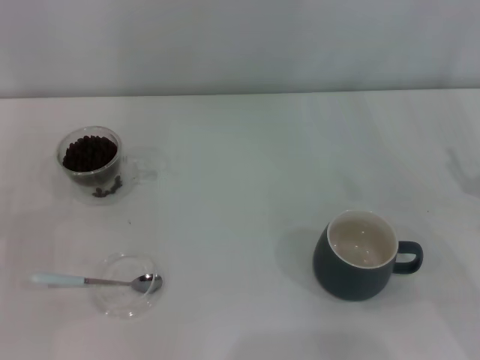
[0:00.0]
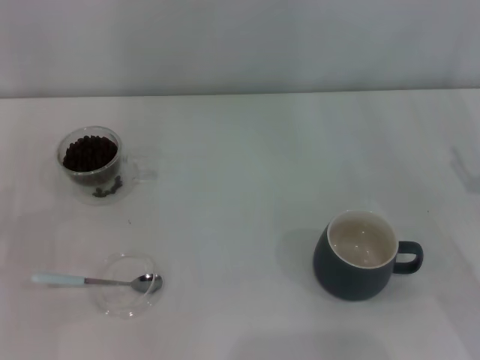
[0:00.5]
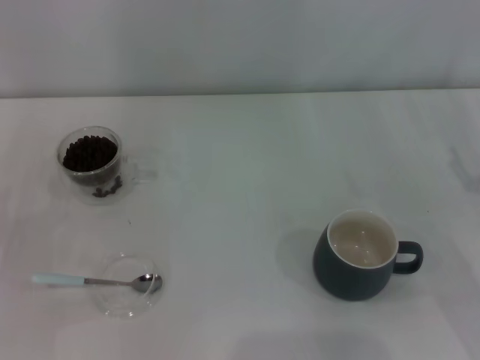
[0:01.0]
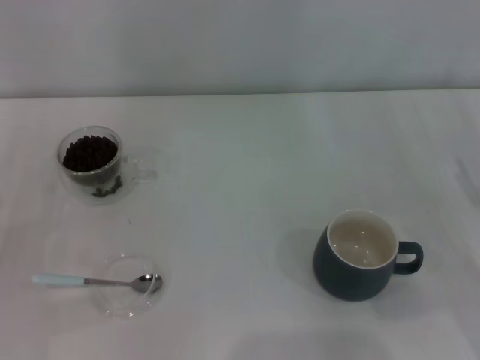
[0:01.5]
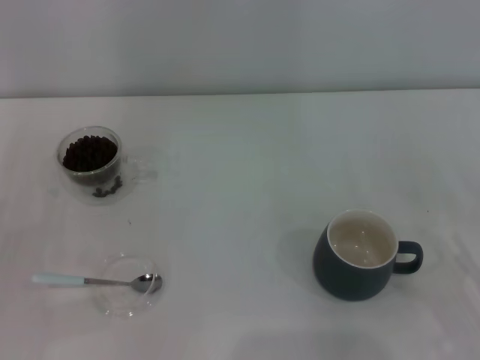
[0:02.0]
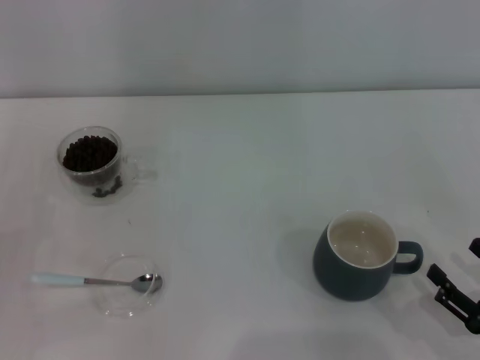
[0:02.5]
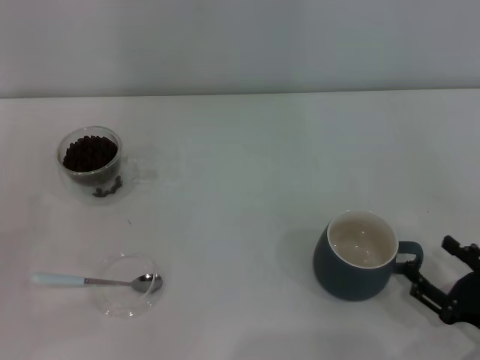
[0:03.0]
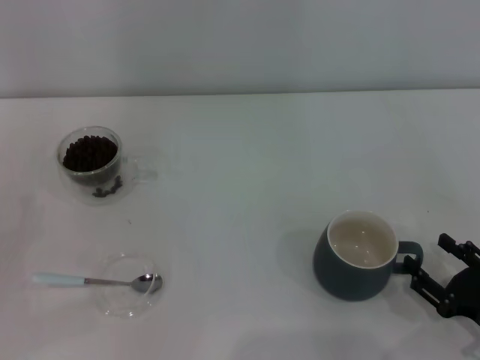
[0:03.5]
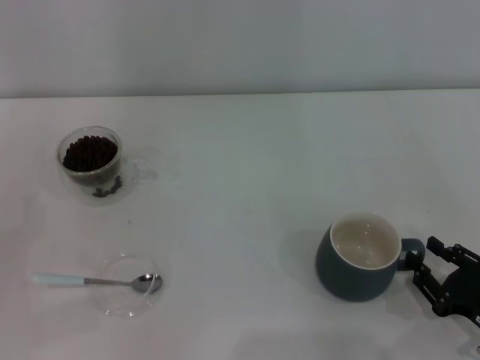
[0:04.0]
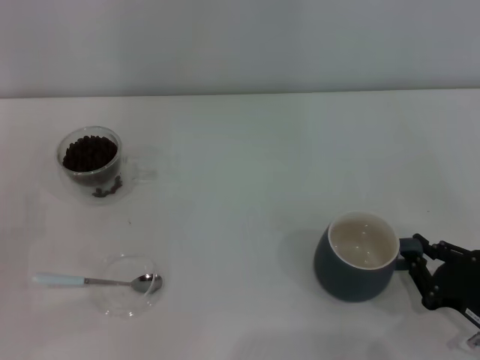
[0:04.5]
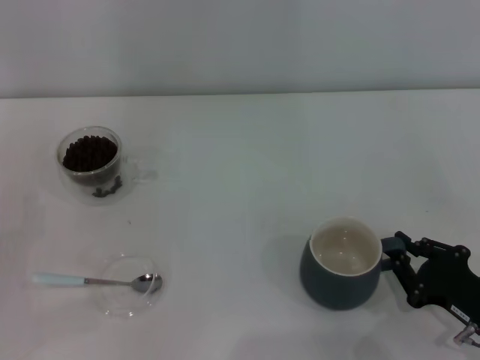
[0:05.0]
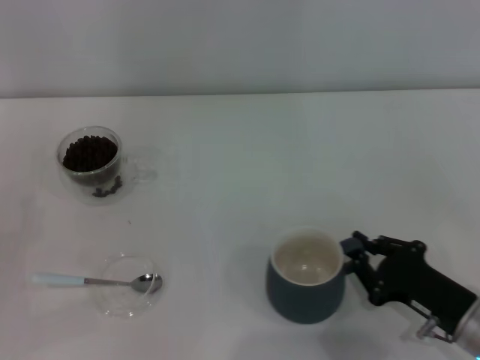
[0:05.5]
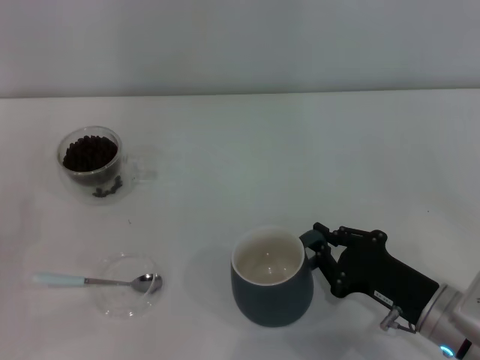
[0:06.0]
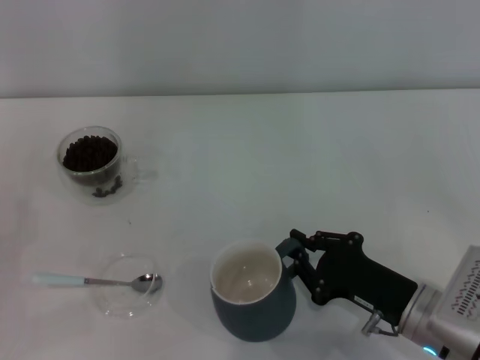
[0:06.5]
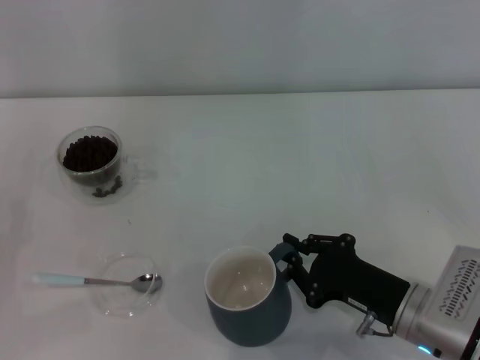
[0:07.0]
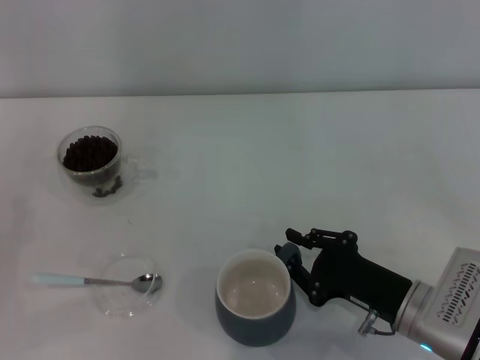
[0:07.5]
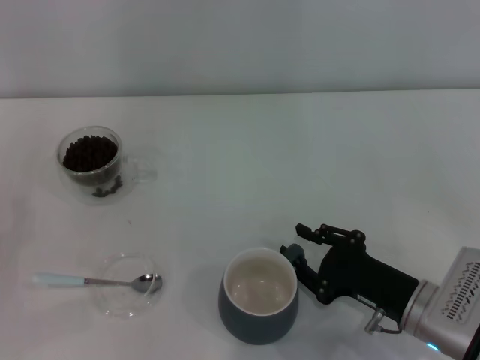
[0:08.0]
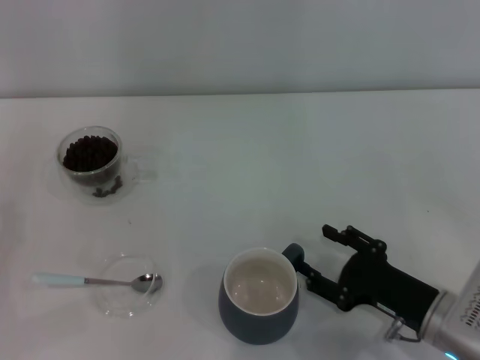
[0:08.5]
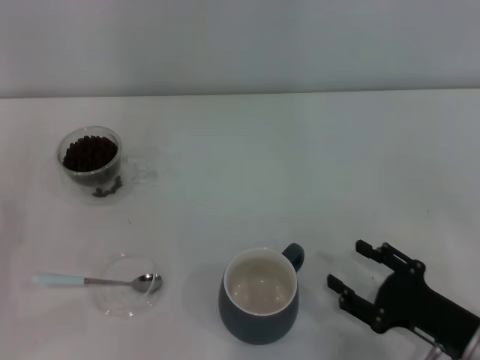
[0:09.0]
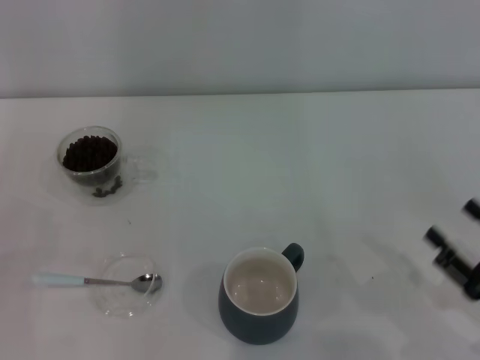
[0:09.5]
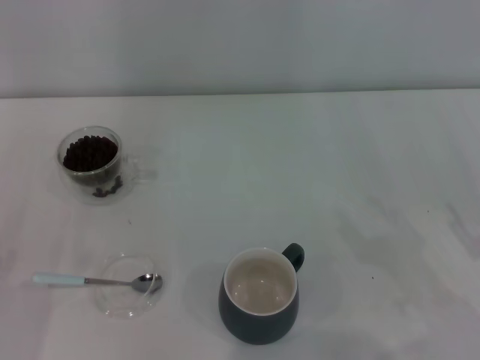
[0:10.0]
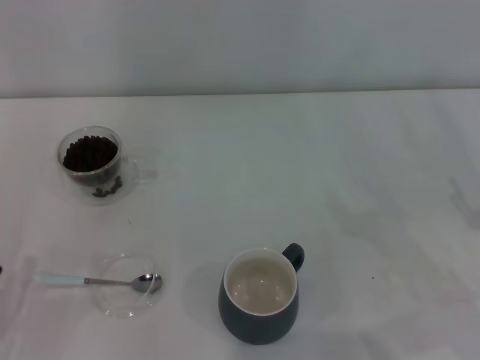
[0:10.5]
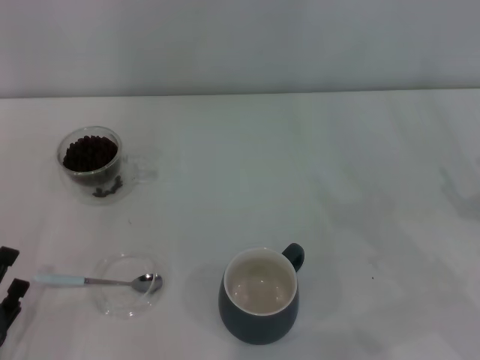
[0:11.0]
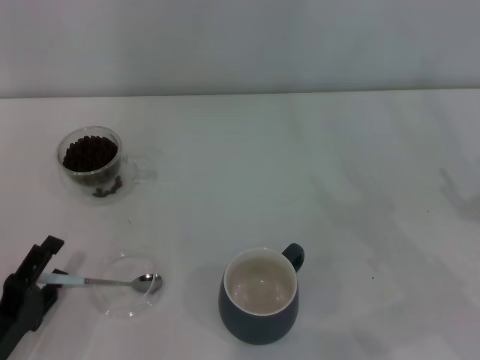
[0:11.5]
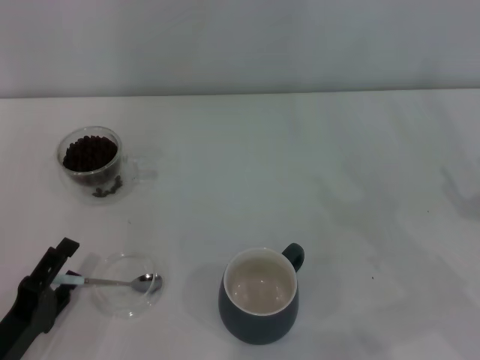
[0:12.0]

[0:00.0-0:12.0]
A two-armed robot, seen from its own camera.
Task of the whole recording: Use a blue spoon to take out the coffee beans from the glass and pour them into the gray cup.
Step, 0:00.0 to 0:08.5: Move the cup to the center of view with the left gripper.
0:02.0 to 0:04.0: The right gripper changes place by about 5 cm, and closes its fingers.
0:04.0 to 0:06.0: The right gripper heads to the left, covering some 10 cm, and closes.
0:06.0 to 0:08.0: There are only small adjustments of the grippers.
0:08.0 to 0:10.0: The right gripper is displaced to the right by about 15 cm, and opens. Meanwhile the left gripper shifts about 5 cm backward.
0:10.0 to 0:12.0: The left gripper heads to the right, covering about 5 cm.

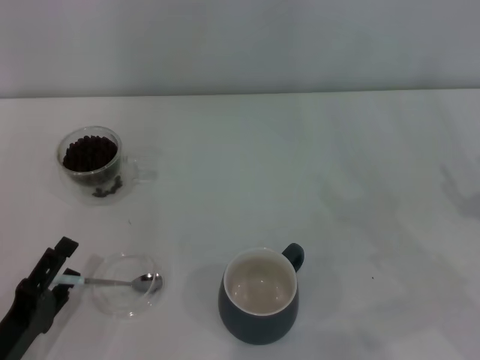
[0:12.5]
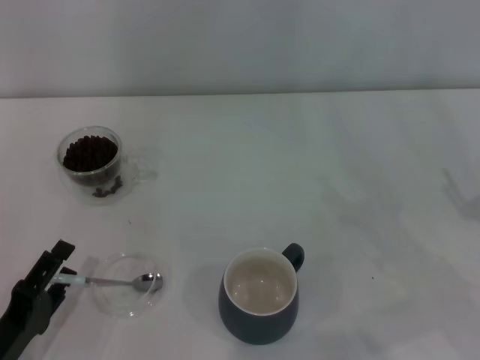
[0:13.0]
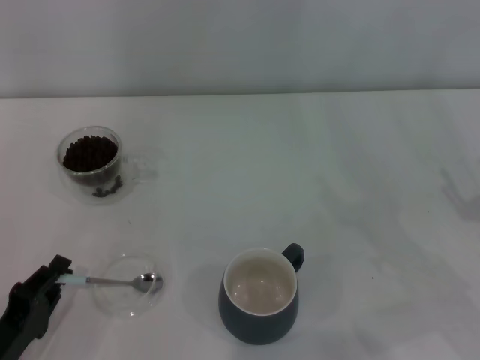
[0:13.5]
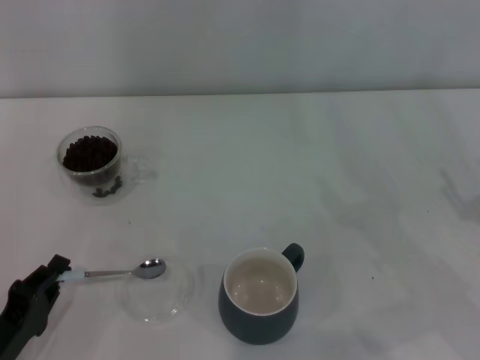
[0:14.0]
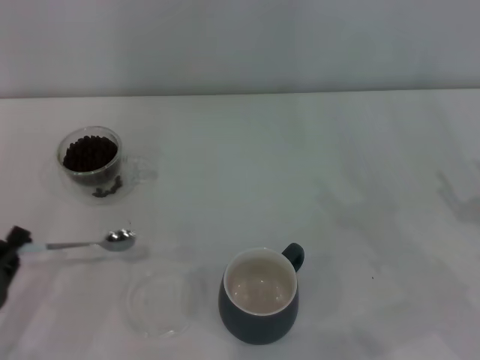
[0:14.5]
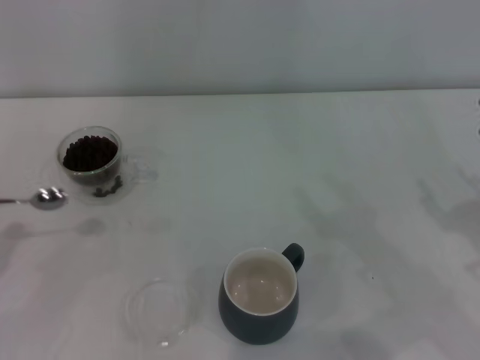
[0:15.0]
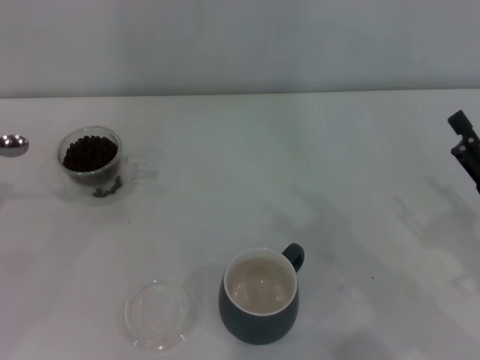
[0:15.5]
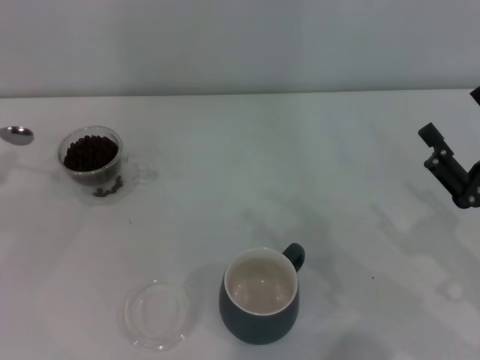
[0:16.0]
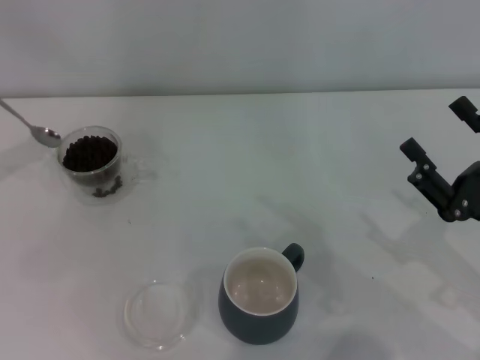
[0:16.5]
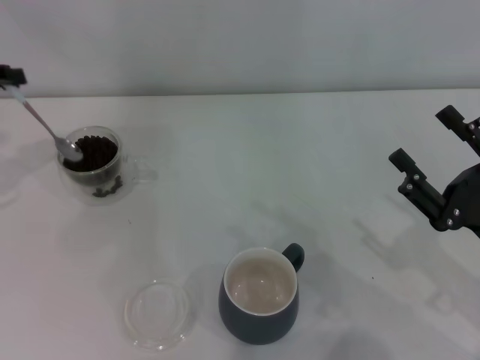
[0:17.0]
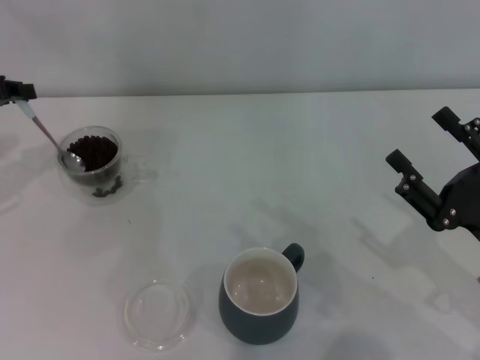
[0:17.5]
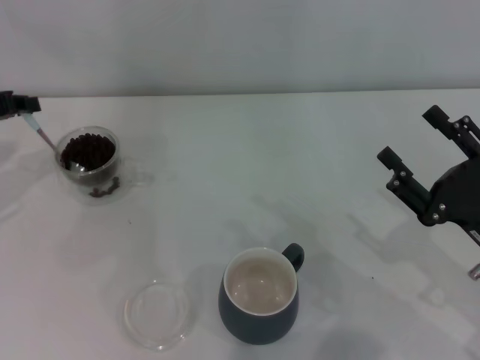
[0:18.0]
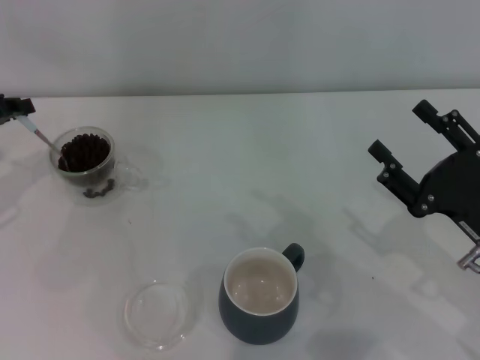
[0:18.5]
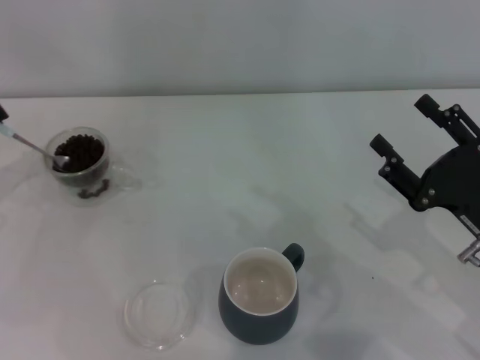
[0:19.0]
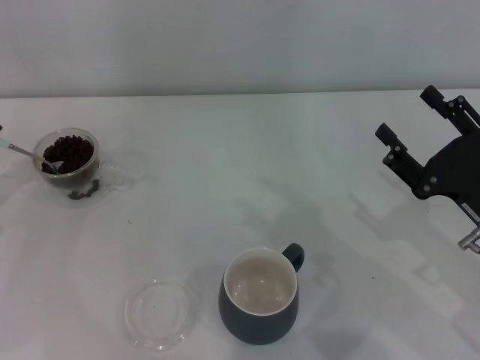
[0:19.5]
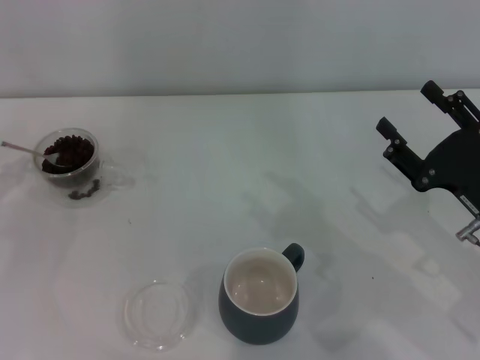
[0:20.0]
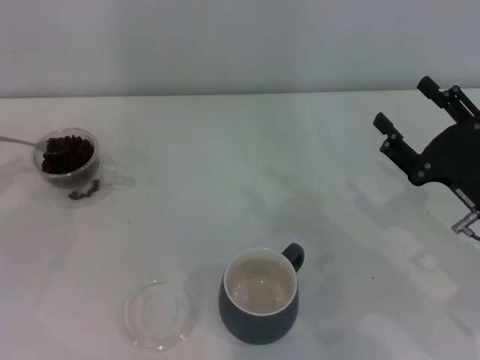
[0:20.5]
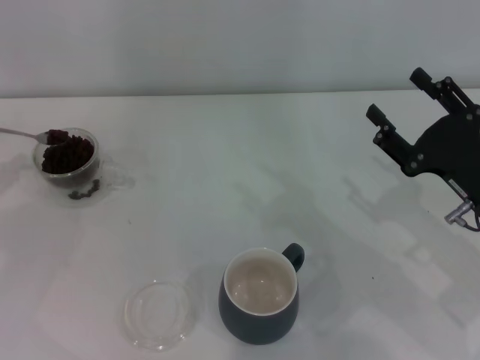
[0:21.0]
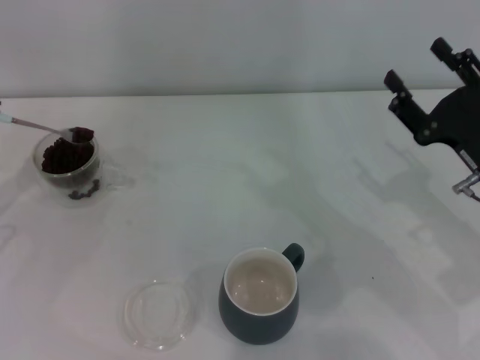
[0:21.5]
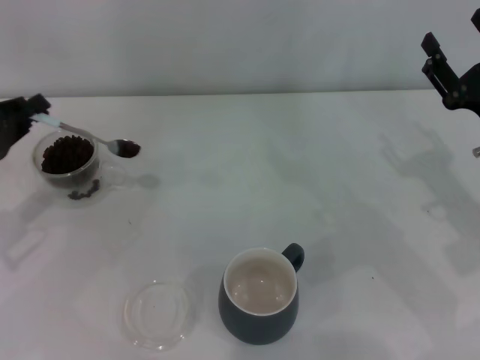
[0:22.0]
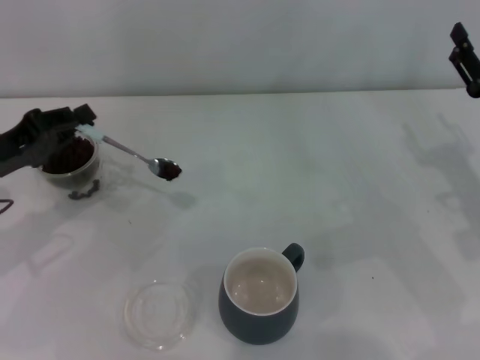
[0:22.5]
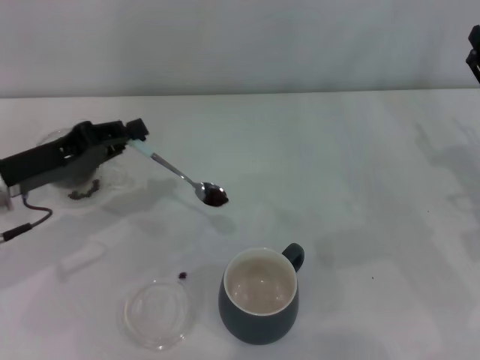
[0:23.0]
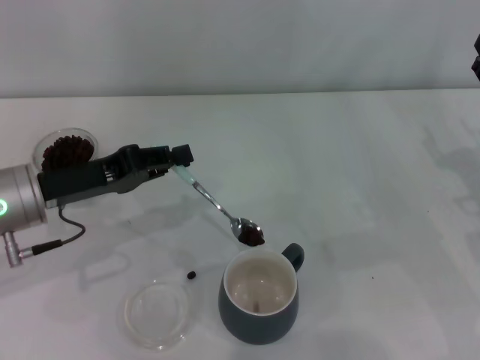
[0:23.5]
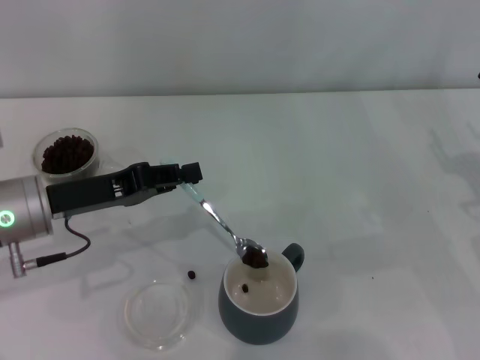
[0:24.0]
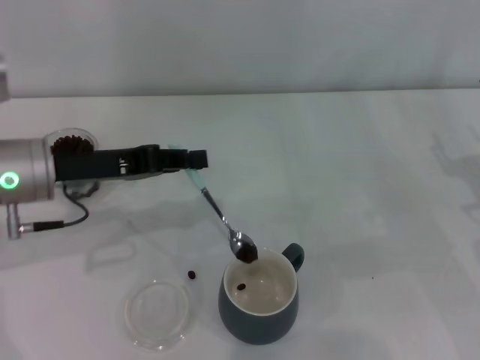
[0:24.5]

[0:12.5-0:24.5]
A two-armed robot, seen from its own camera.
Task of the whole recording: Use a blue spoon to take out the coffee beans from the glass and pour them into the gray cup.
0:12.5 to 0:14.5: The left gripper closes up.
0:14.5 to 0:16.5: The left gripper moves forward, upward and to the left, some 30 cm. Meanwhile the right gripper travels to the left by roughly 5 cm.
0:16.5 to 0:18.5: The left gripper moves about 5 cm.
0:18.5 to 0:20.5: The left gripper shifts about 5 cm backward.
0:20.5 to 0:22.5: The right gripper is displaced forward by approximately 5 cm, while the left gripper is displaced to the right by about 10 cm.
0:22.5 to 0:24.5: The left gripper goes some 10 cm to the right.

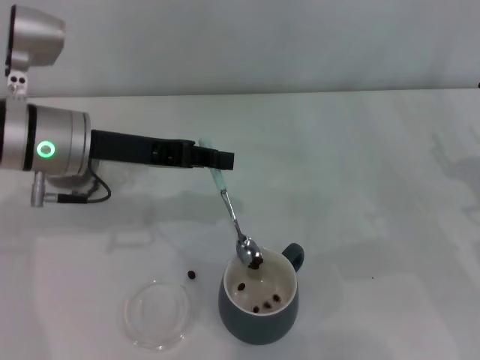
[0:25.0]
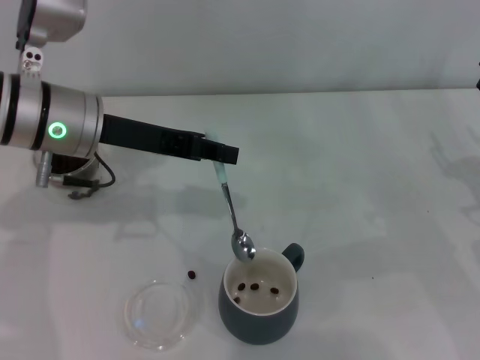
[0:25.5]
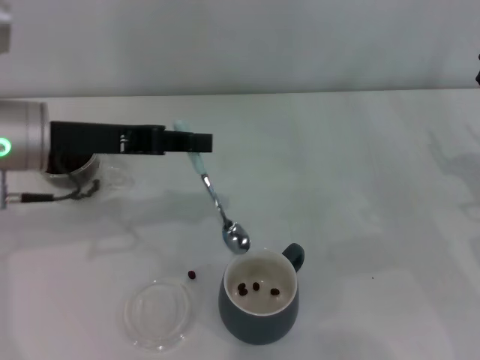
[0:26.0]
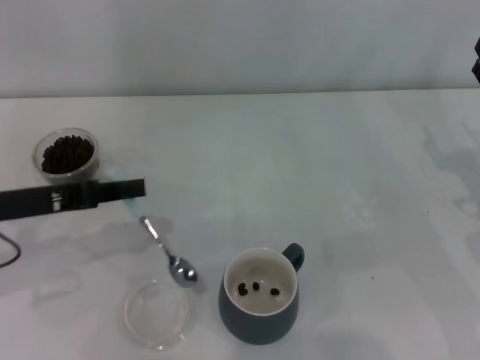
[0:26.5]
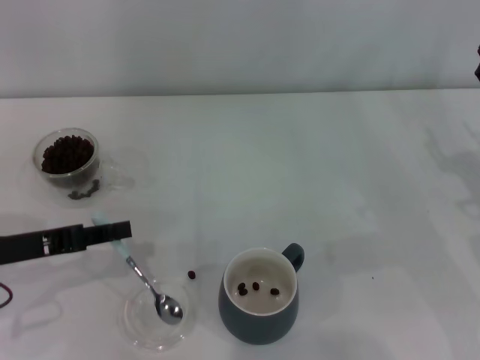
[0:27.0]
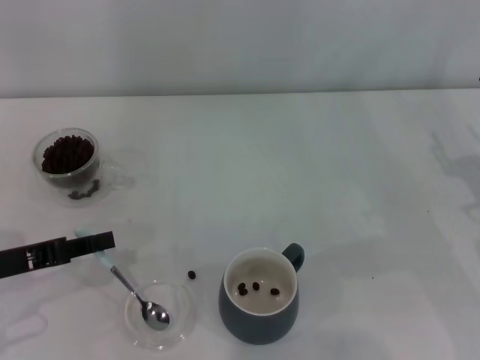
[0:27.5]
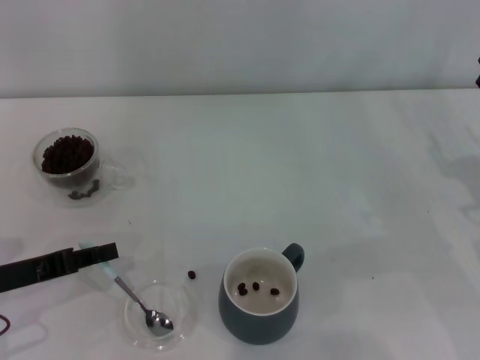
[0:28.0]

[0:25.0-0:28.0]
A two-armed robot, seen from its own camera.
Task of the whole recording: Use a blue spoon to take out the coffee beans from the glass and pour them into the gray cup.
0:25.0 to 0:26.5: The left gripper travels to the left and backward by some 10 cm.
0:26.5 to 0:28.0: The left gripper is displaced downward by roughly 5 cm.
